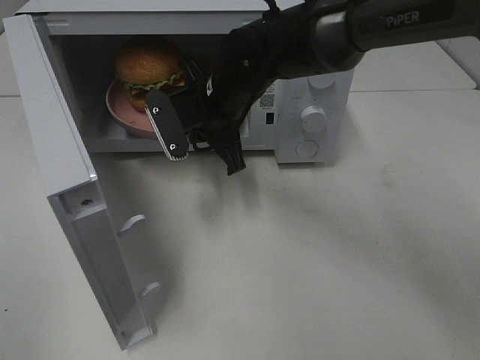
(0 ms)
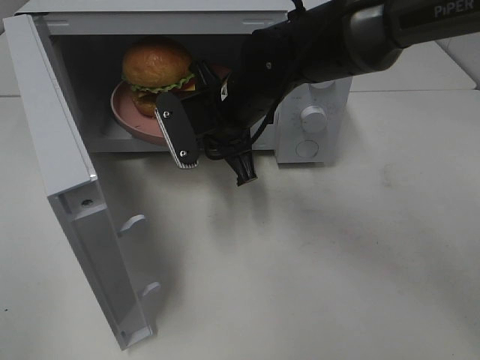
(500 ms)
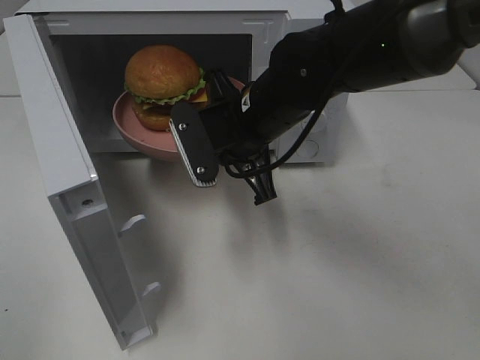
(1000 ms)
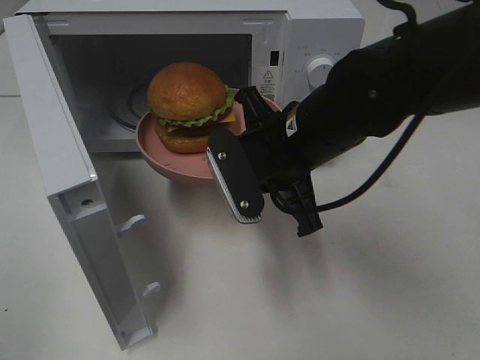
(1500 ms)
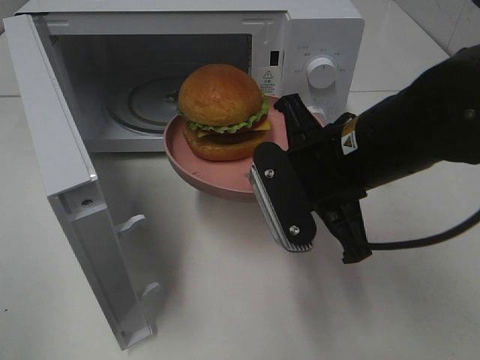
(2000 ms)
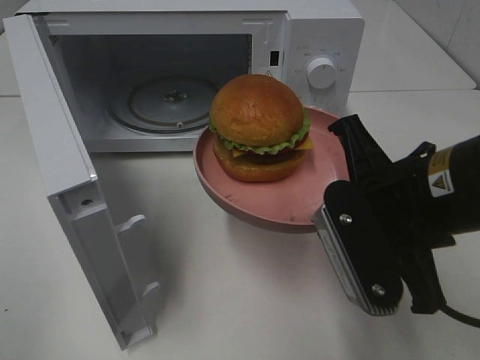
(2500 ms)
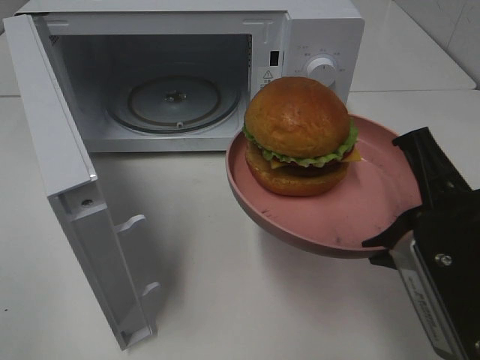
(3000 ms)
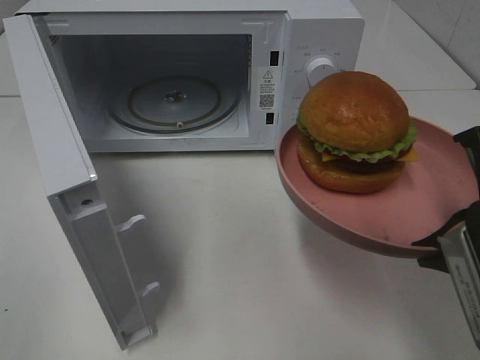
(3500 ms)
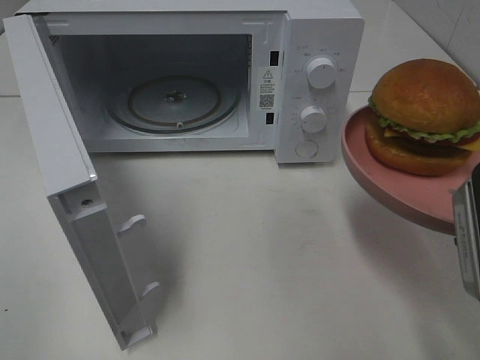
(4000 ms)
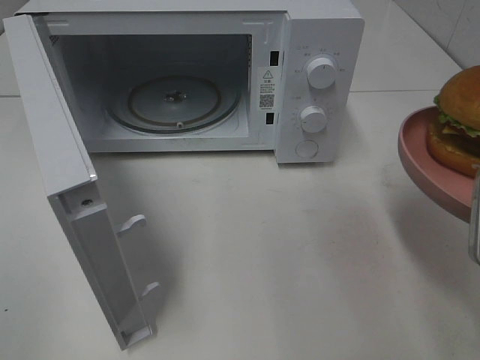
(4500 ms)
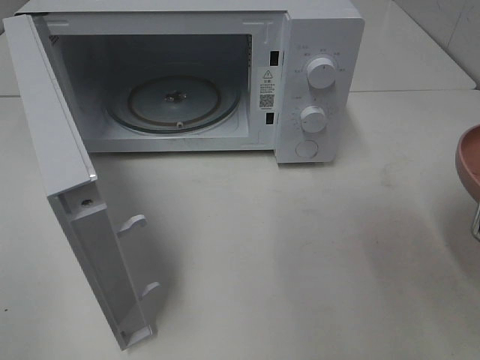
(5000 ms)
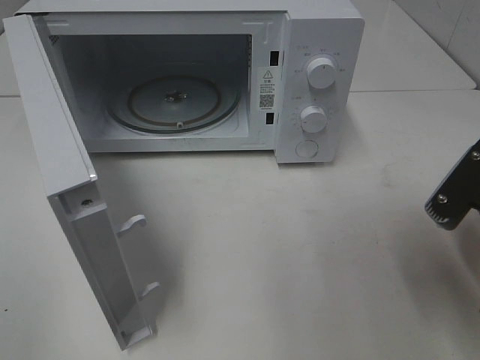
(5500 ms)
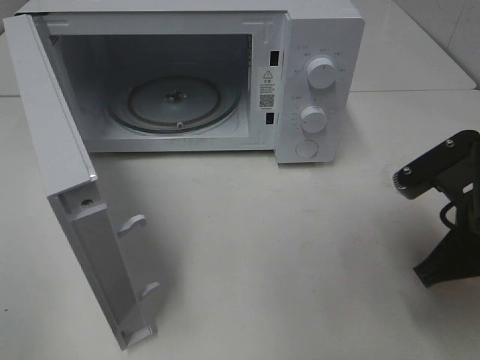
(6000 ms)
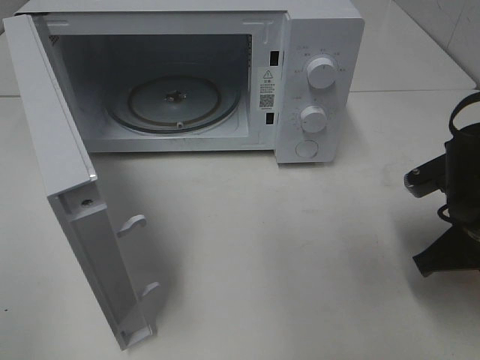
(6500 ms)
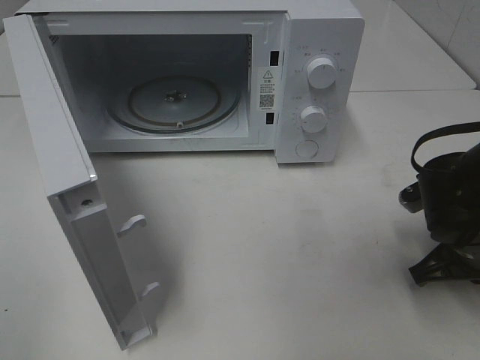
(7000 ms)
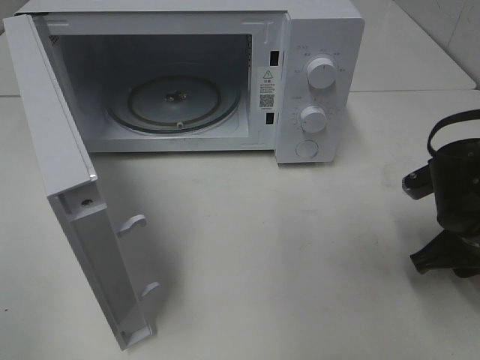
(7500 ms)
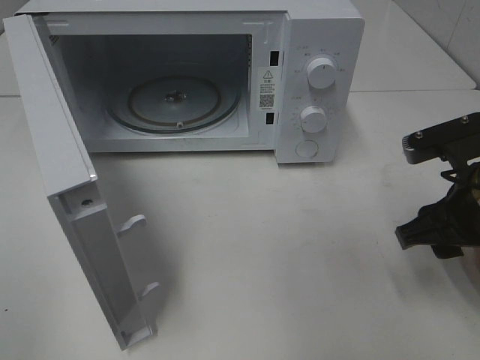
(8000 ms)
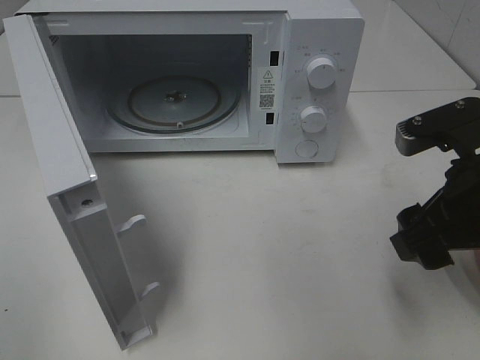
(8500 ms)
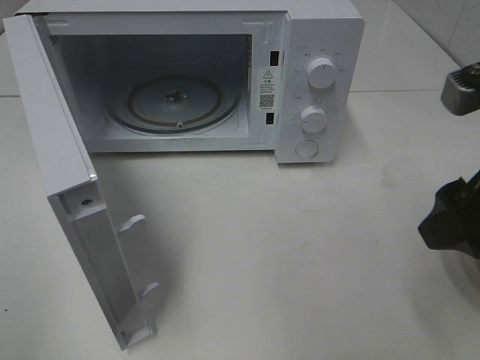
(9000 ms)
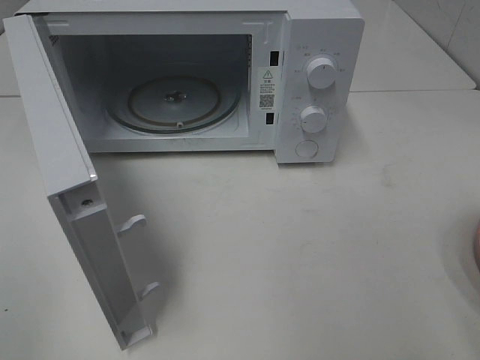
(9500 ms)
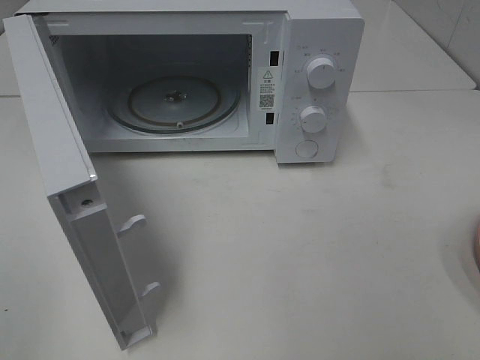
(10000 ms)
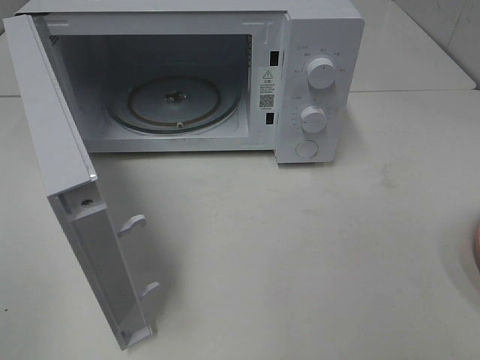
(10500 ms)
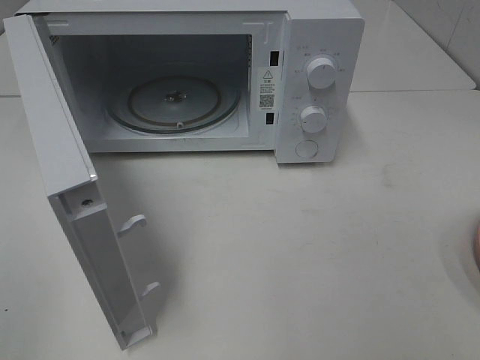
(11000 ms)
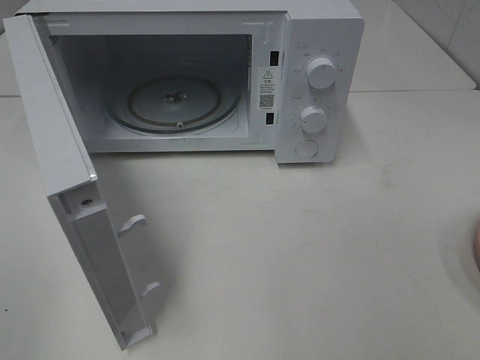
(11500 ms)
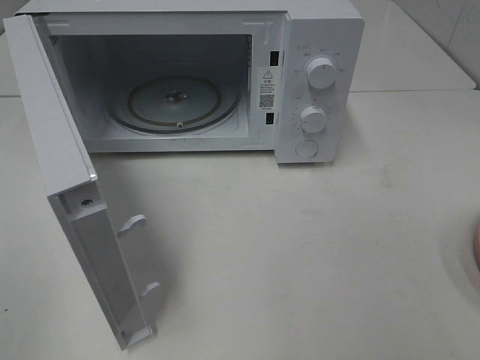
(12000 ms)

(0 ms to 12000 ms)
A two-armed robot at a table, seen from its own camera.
Task of the whole recording: Heat the burger.
Step, 0 ms - 7500 ms: Right hand: place the plate on the table.
0 ms - 2000 ms: The right gripper heads backward and to the right, covering roughly 20 cm.
2000 ms - 4000 ms: The right gripper shifts roughly 15 cm to the right and backward.
4000 ms - 6000 ms: The right gripper shifts roughly 10 cm downward and forward.
6000 ms - 8000 ms: The right gripper goes downward and returns, roughly 5 cm each way, and opens up.
8000 ms - 10000 ms: The right gripper heads backward and upward, covering about 20 cm.

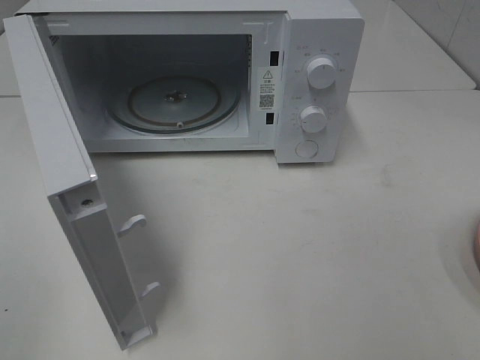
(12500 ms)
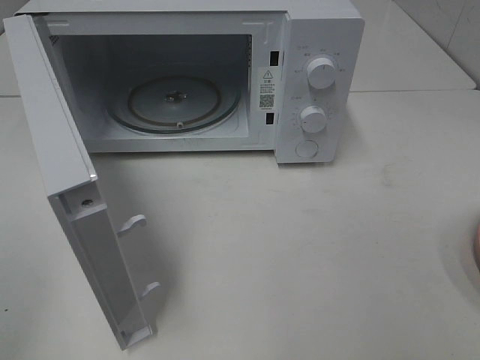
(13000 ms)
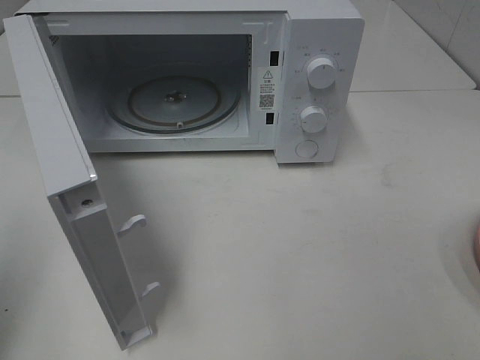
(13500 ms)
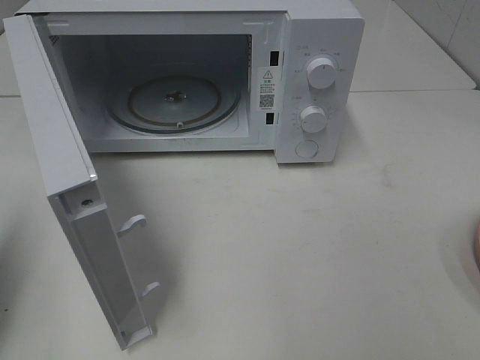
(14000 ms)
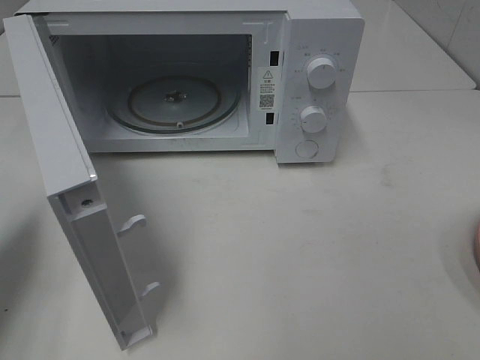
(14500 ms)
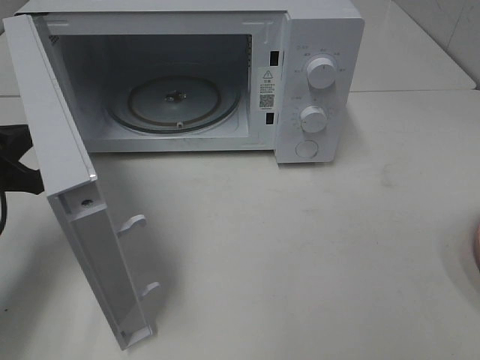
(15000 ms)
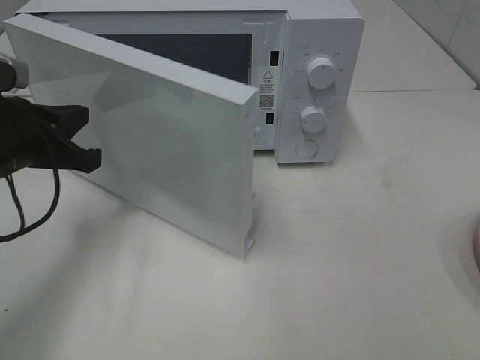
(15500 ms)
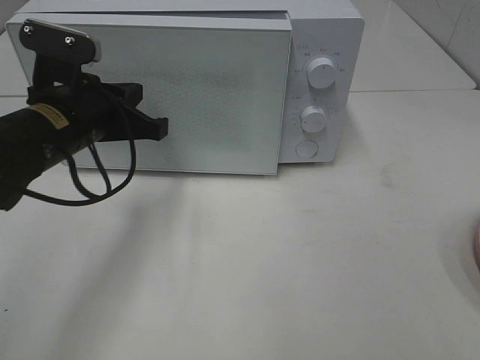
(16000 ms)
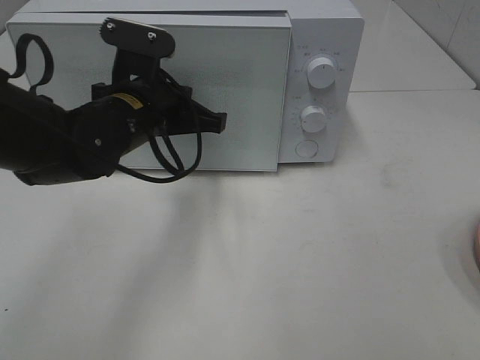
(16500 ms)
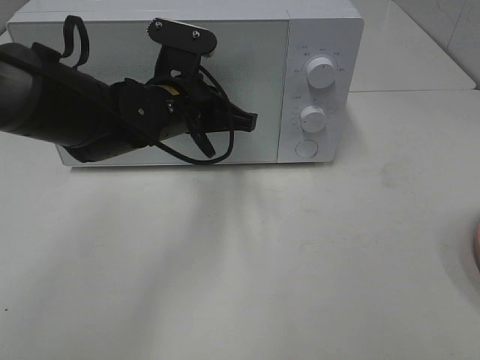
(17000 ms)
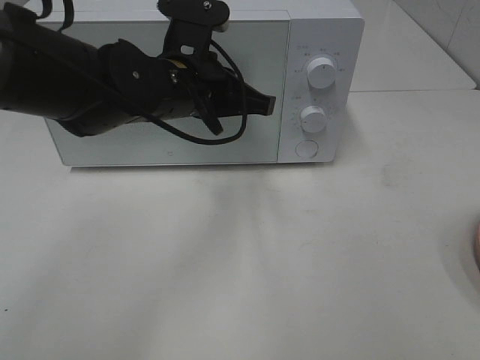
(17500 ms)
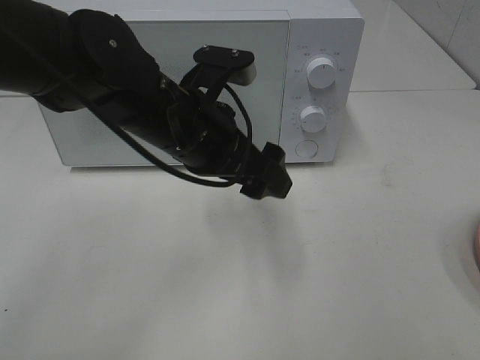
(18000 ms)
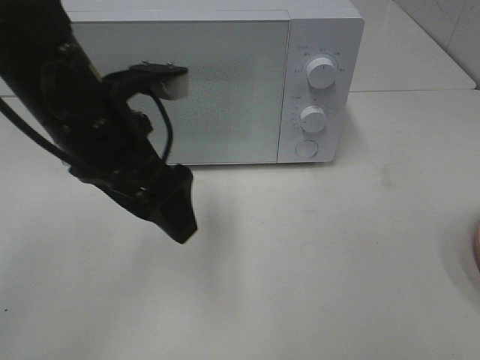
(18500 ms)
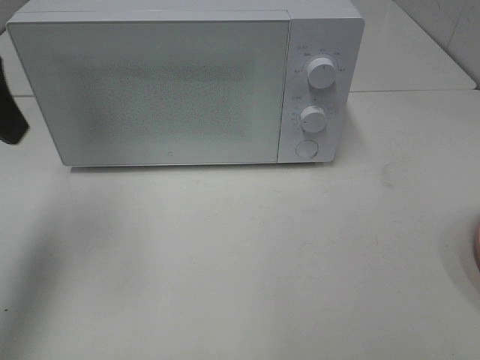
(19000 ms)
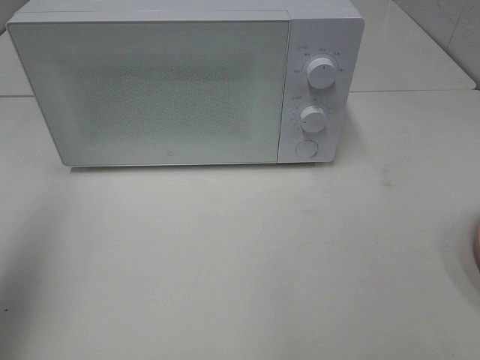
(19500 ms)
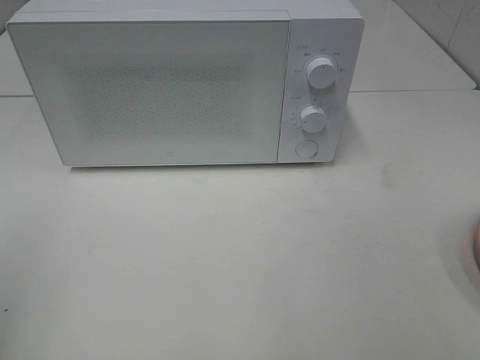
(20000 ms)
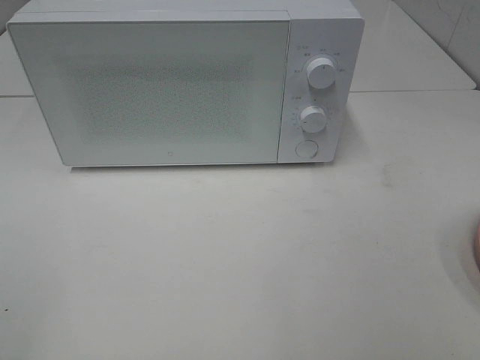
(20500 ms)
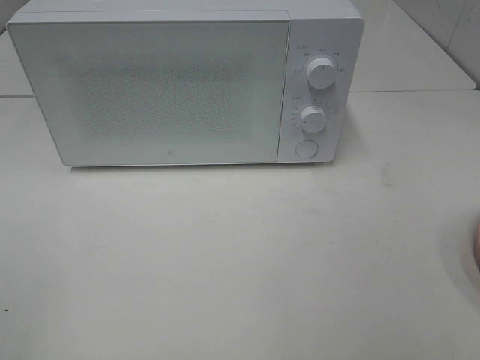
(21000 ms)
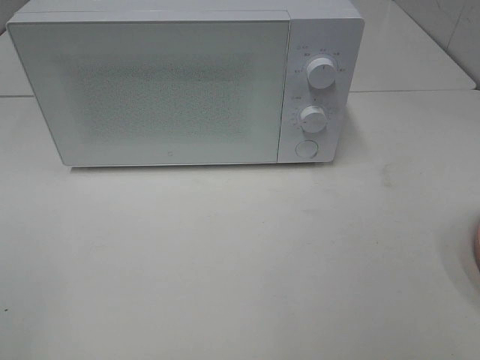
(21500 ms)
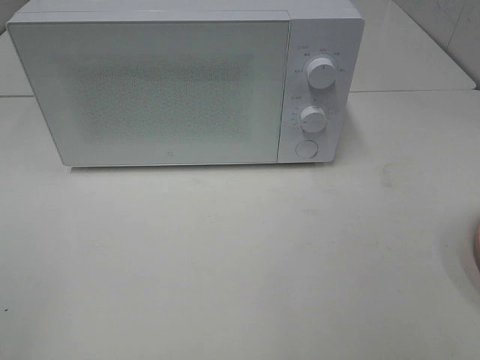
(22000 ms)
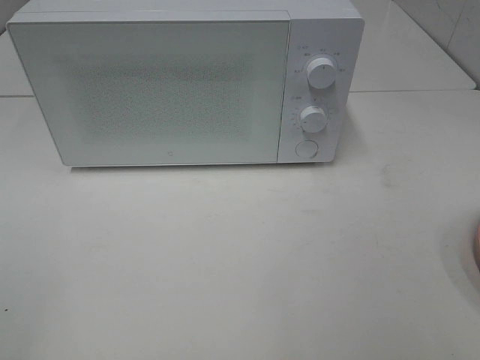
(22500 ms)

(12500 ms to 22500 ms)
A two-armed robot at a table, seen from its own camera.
Task of the whole recording: Heat the burger.
Step, 12500 ms - 17500 ms: Left hand: close the microwave door.
12500 ms - 14500 ms: The left gripper heads forward, covering roughly 20 cm, and closes.
14500 ms - 16500 ms: The left gripper heads to the right and forward, covering roughly 25 cm.
16500 ms - 18500 ms: The left gripper moves upward and backward, about 10 cm, and opens its fingers.
18500 ms - 20500 ms: The left gripper shifts some 35 cm backward and to the left.
20500 ms - 22500 ms: Both grippers stay about where they are.
